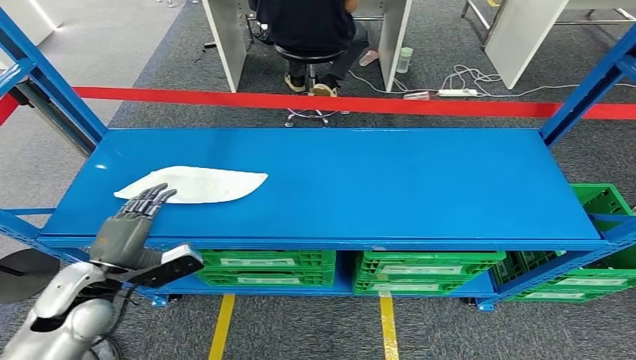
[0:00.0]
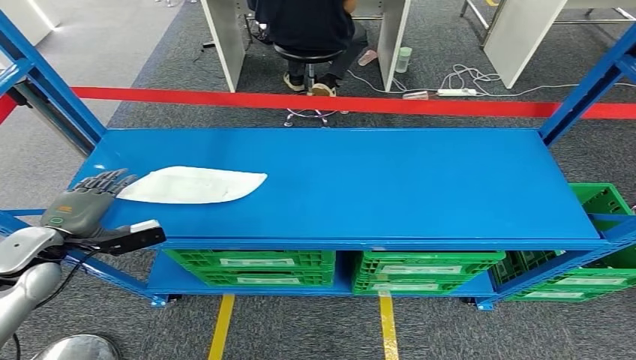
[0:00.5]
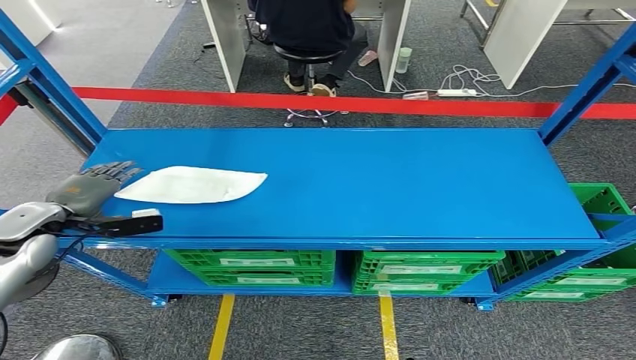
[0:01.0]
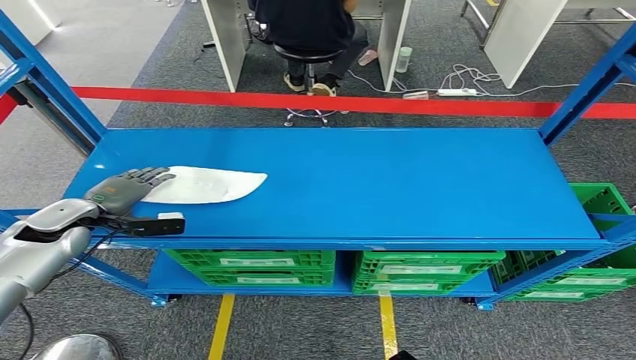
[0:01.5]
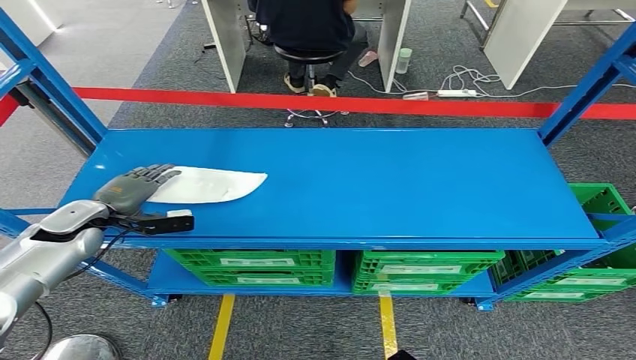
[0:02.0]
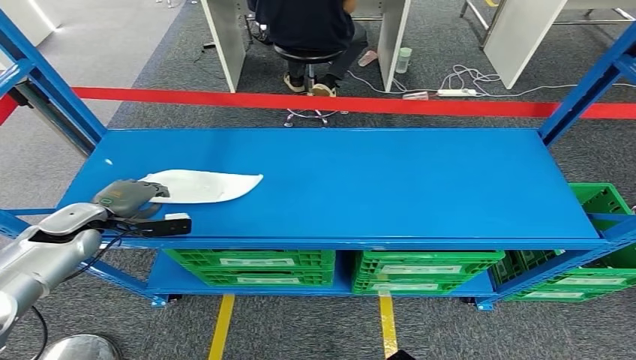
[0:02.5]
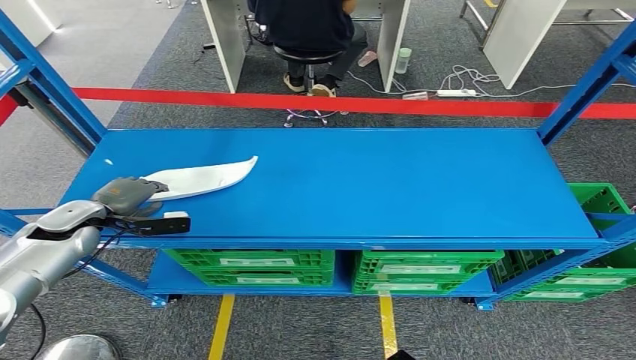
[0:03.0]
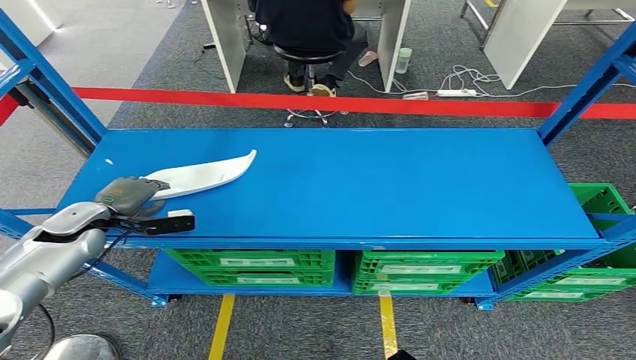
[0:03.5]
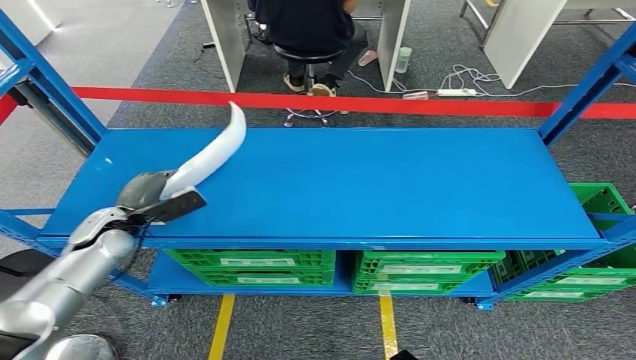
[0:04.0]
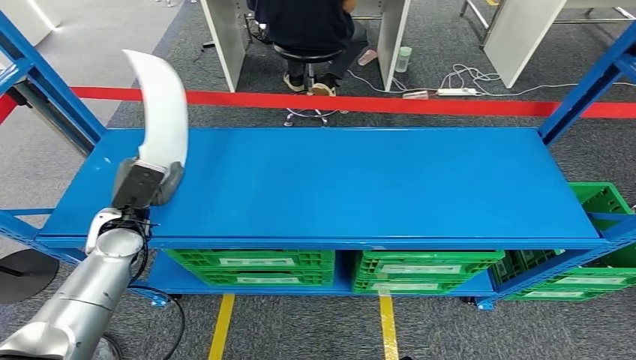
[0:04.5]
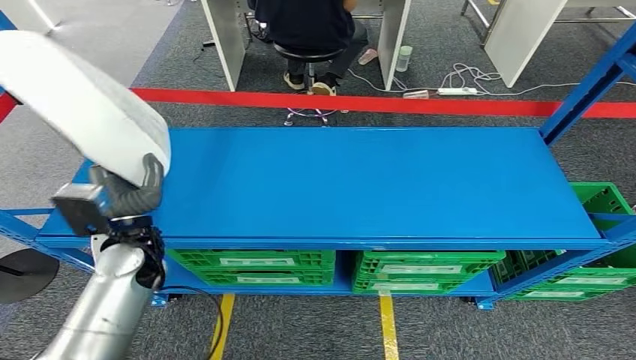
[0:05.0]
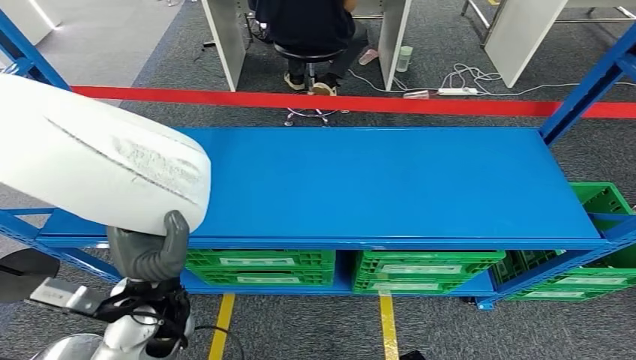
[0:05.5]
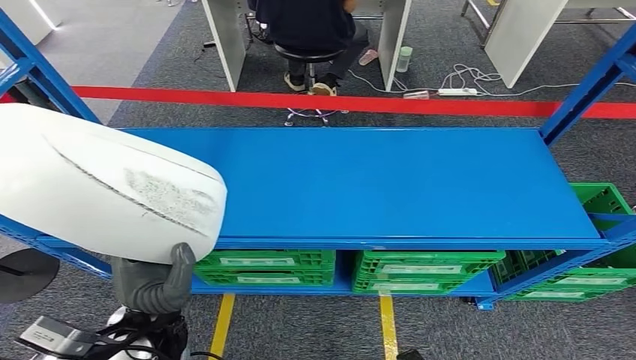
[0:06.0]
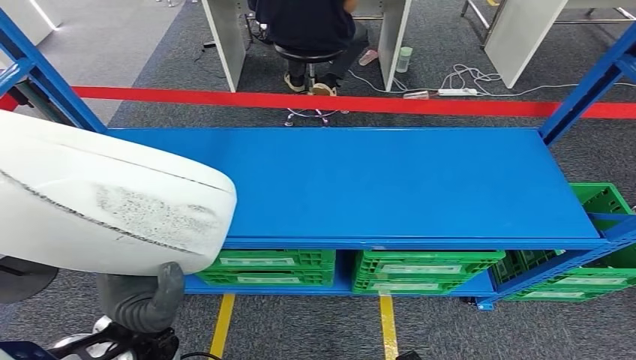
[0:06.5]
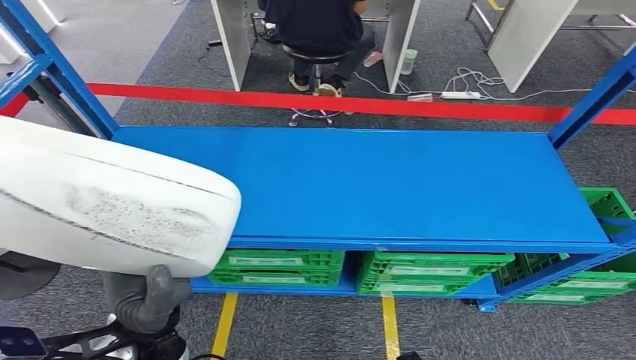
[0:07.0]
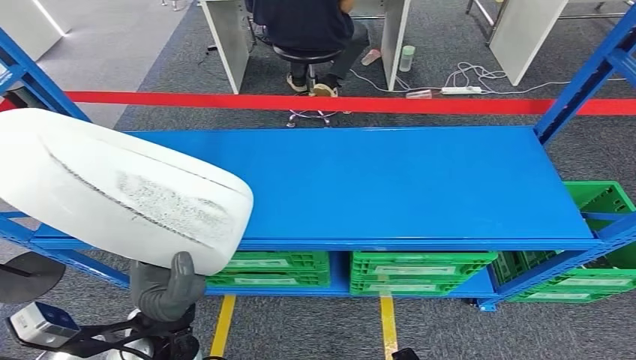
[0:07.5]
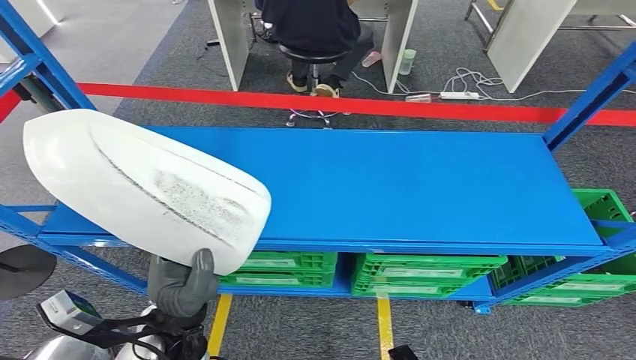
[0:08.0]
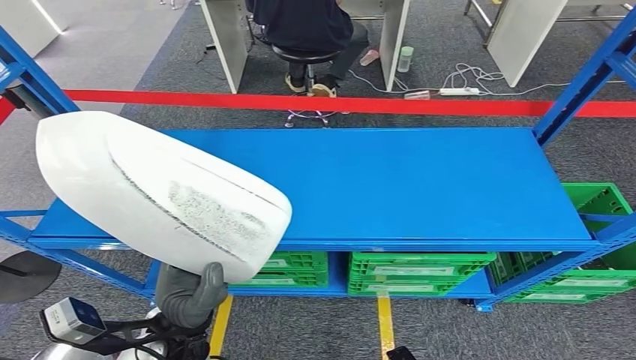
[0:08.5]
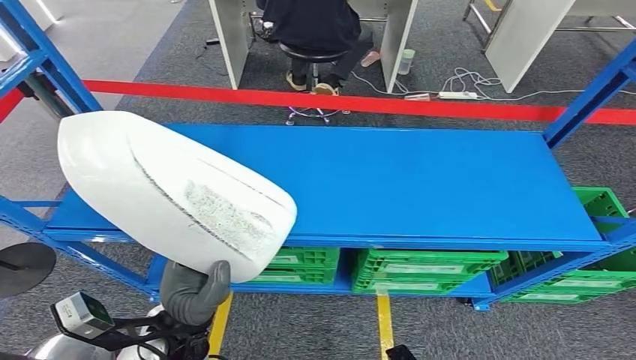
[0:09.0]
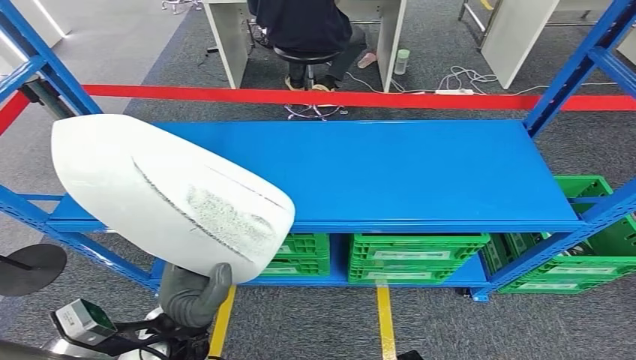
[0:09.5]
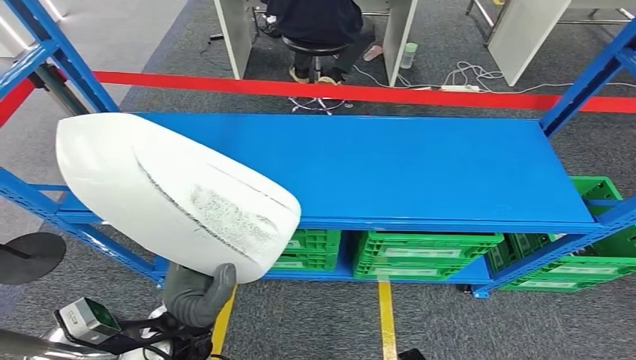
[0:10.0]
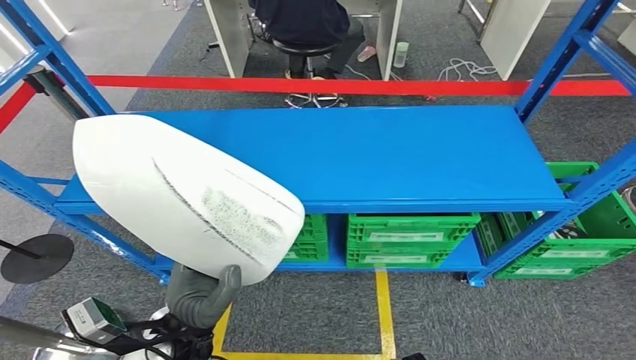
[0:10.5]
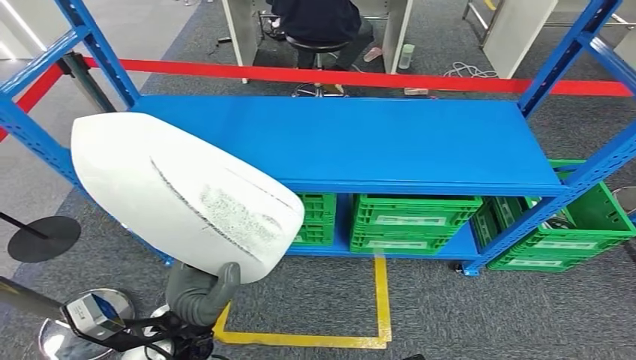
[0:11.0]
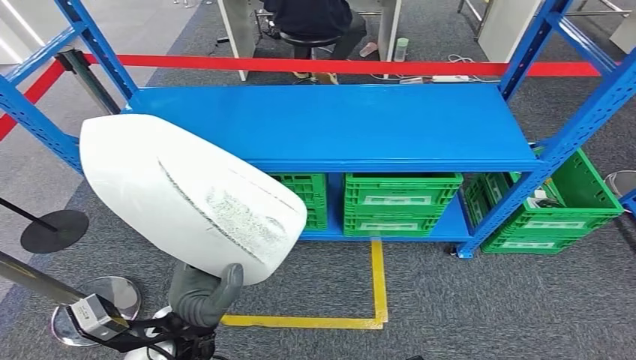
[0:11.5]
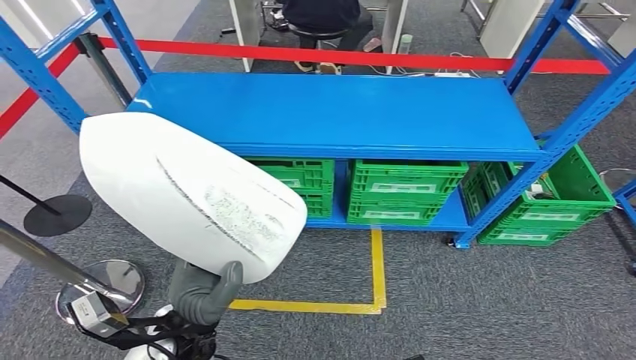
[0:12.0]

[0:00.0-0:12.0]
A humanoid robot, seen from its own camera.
Step, 0:00.0 to 0:07.5: Pick up the small component from the shelf.
0:00.0 to 0:02.0: The left hand goes roughly 15 cm forward and to the left.
0:02.0 to 0:04.0: The left hand shifts by approximately 5 cm.
0:04.0 to 0:06.0: The left hand is displaced backward and to the right by roughly 25 cm.

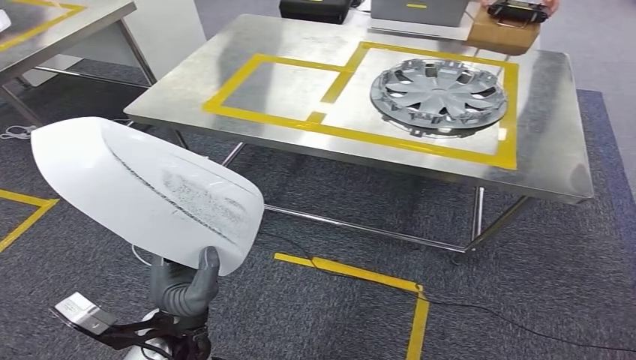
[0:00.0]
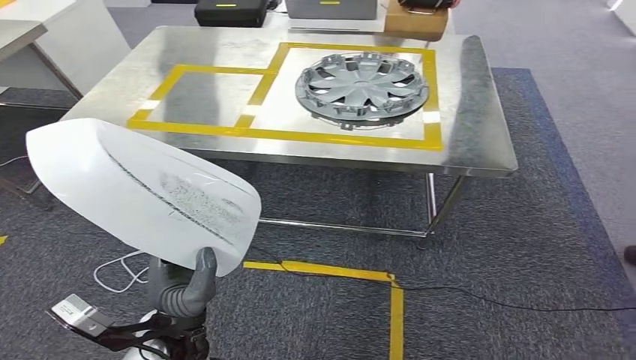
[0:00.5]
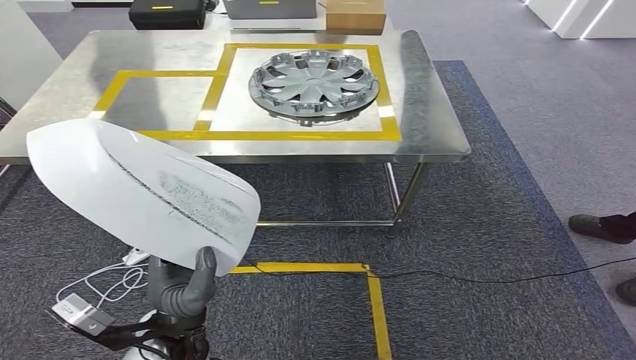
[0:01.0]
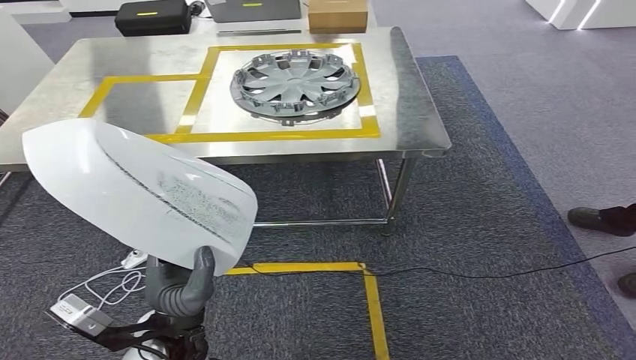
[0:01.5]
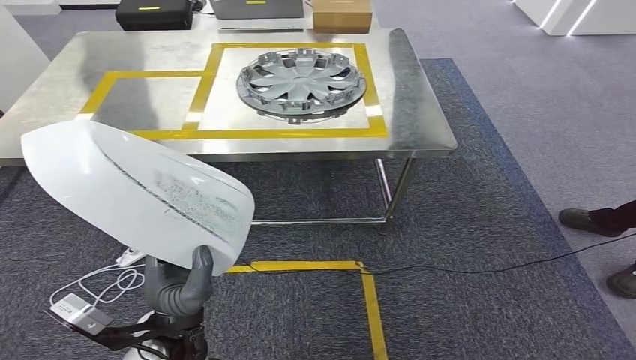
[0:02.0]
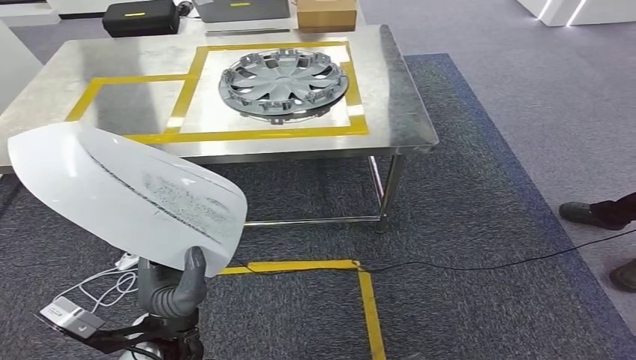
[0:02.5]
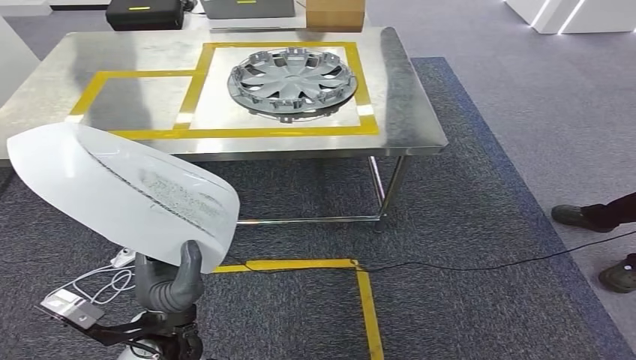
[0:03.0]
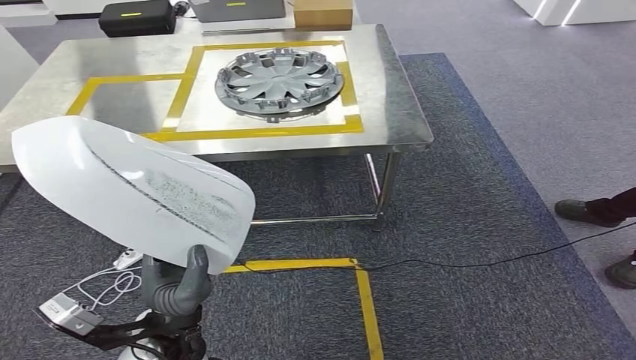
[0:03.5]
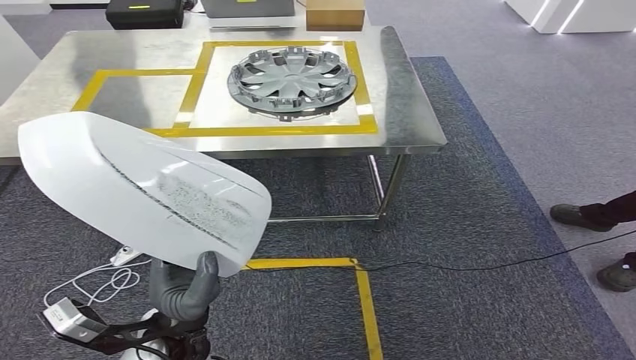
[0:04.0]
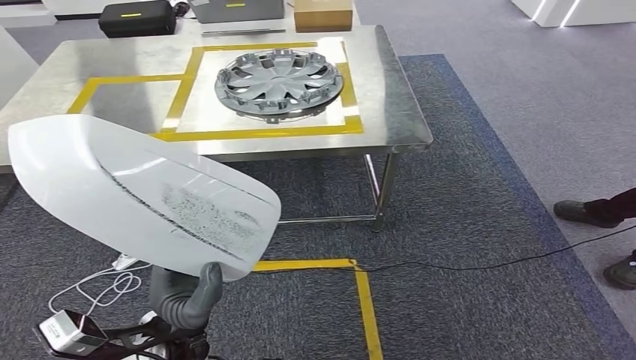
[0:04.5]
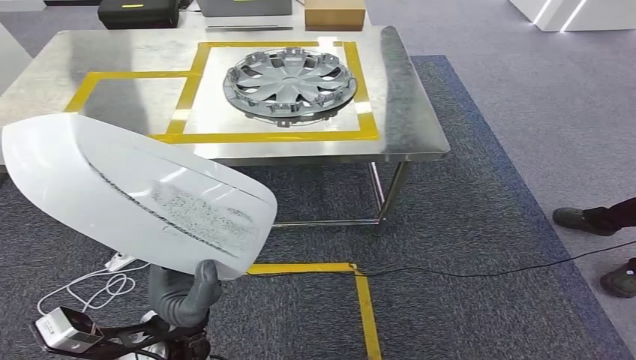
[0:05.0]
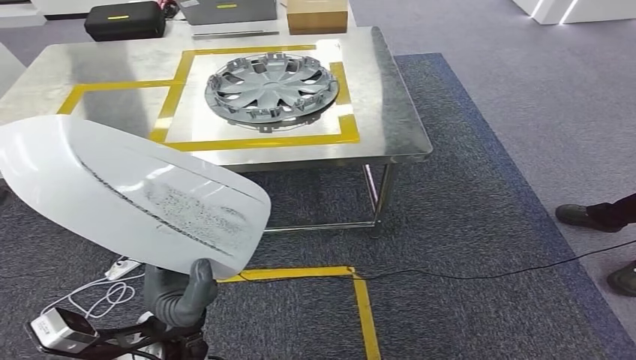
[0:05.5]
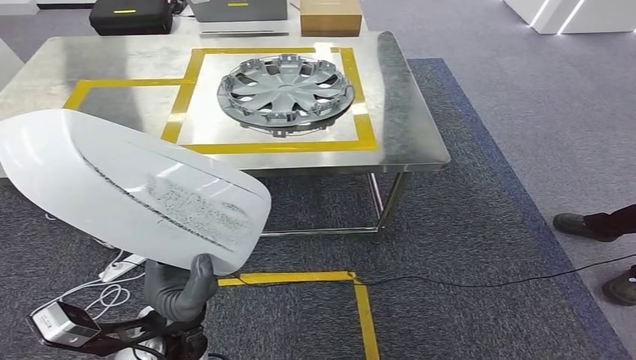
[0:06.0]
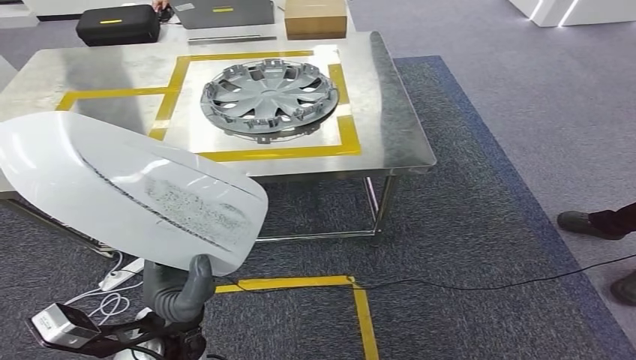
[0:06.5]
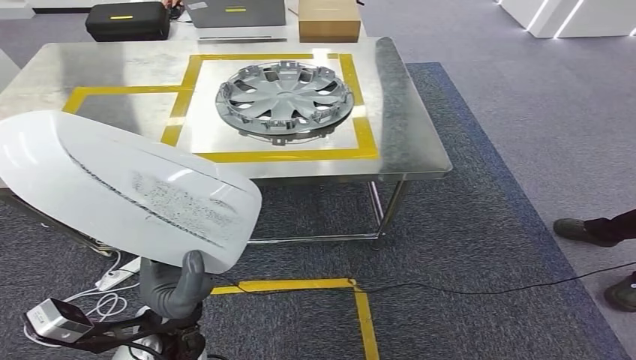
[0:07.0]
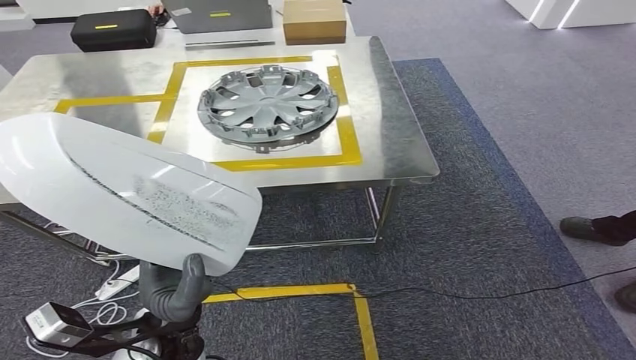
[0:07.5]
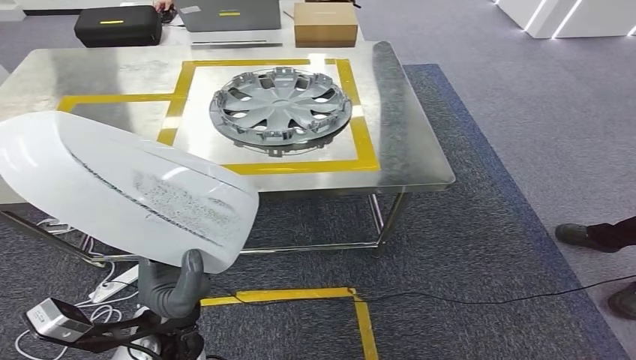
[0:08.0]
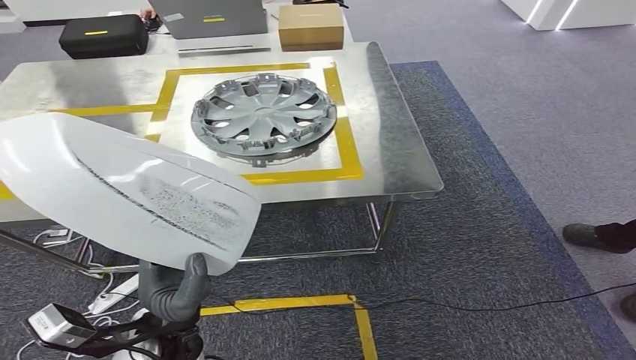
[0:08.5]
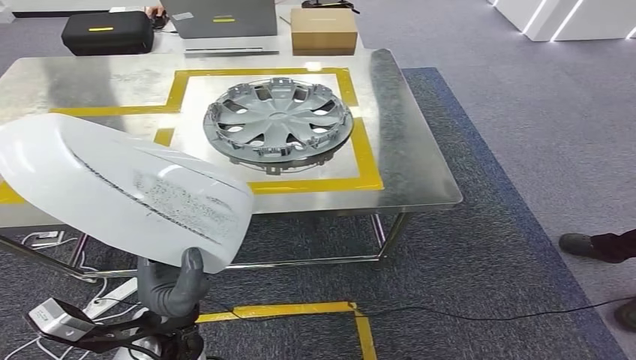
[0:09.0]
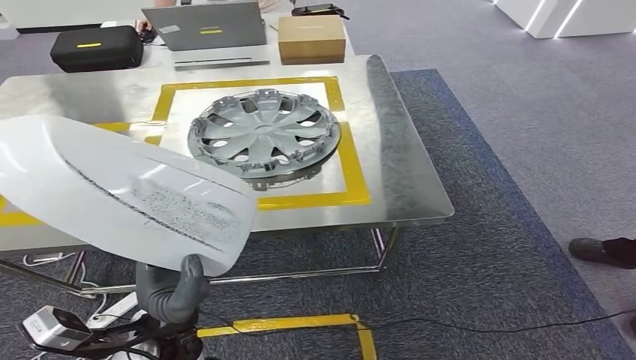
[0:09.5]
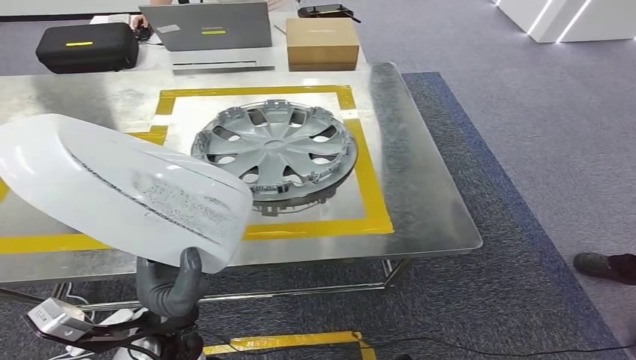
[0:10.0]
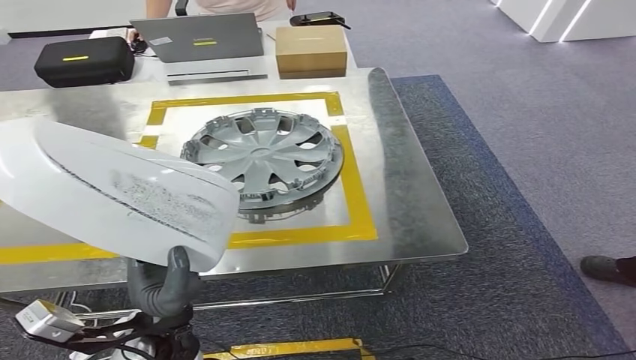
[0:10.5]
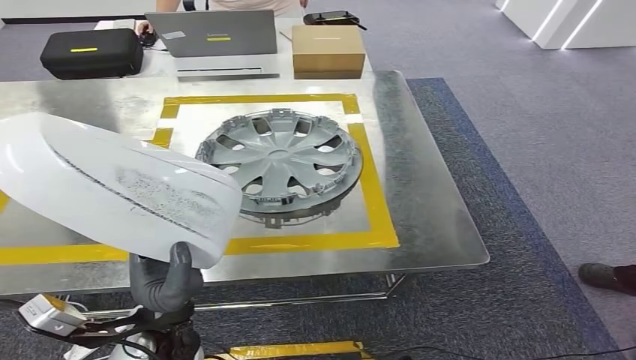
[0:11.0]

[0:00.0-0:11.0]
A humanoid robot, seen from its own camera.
Step, 0:00.0 to 0:07.0: Bring the small component to the front of the workbench.
0:02.0 to 0:03.5: The hands make only small movements.
